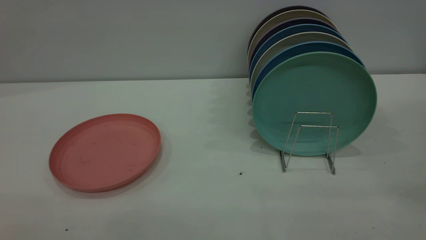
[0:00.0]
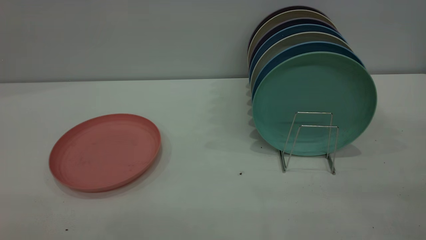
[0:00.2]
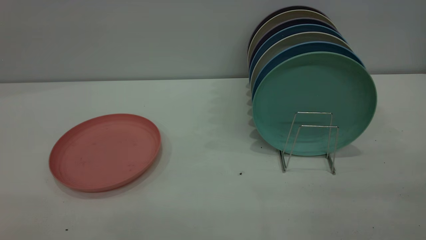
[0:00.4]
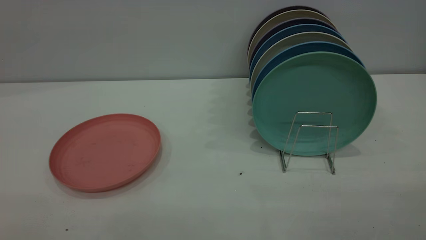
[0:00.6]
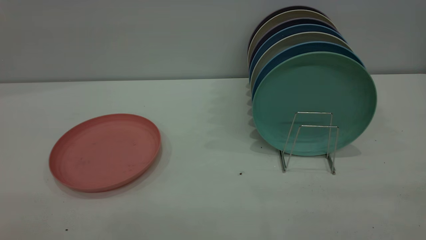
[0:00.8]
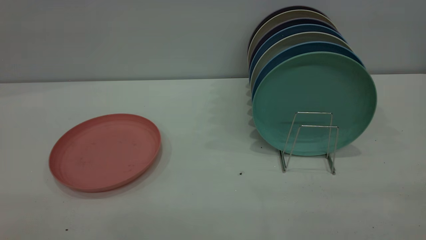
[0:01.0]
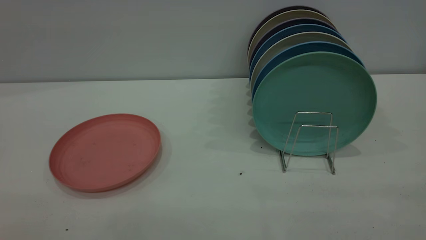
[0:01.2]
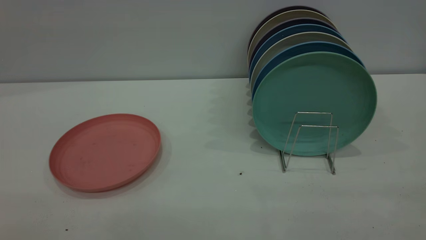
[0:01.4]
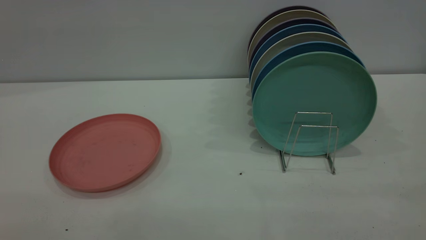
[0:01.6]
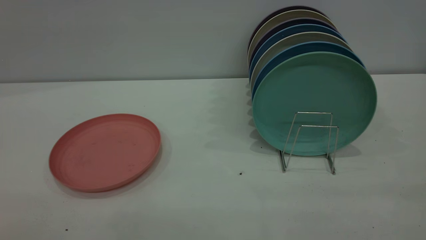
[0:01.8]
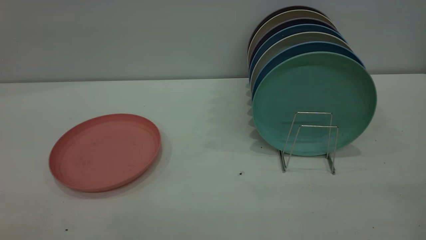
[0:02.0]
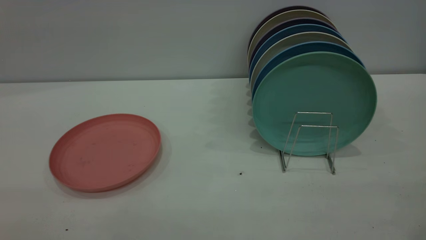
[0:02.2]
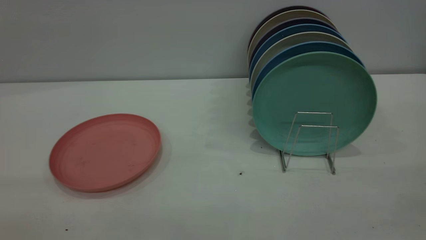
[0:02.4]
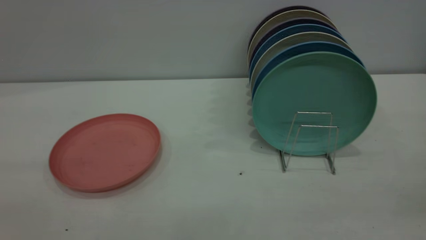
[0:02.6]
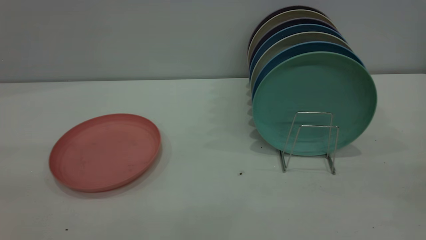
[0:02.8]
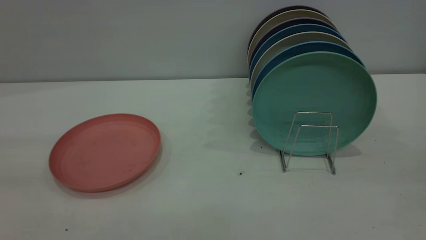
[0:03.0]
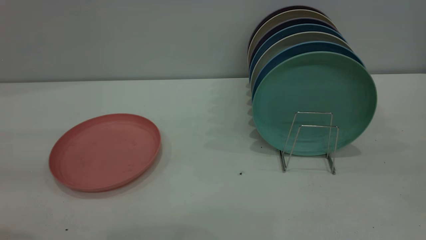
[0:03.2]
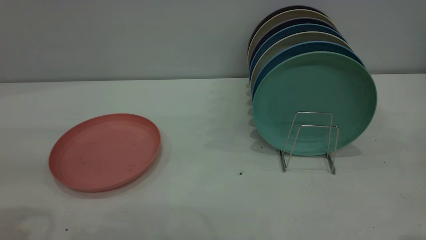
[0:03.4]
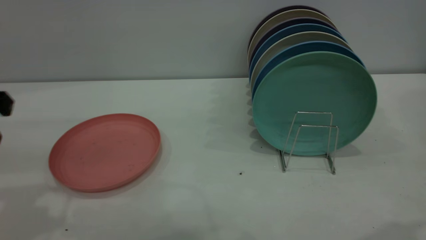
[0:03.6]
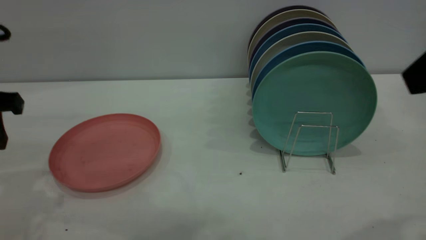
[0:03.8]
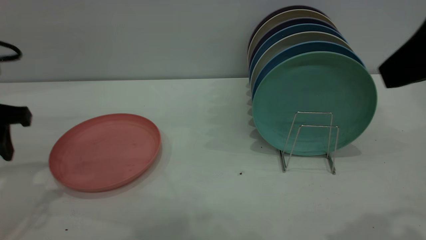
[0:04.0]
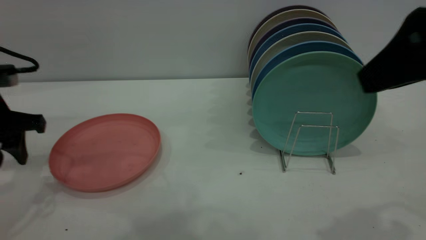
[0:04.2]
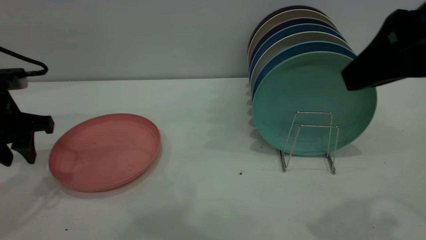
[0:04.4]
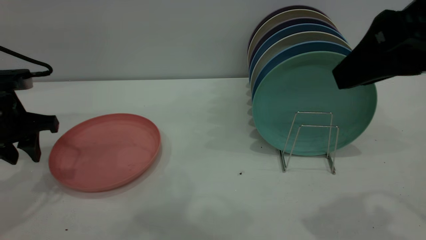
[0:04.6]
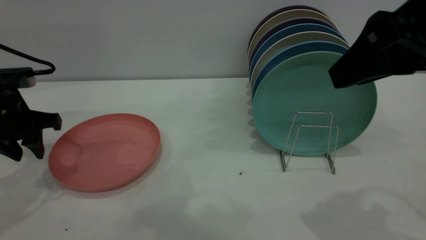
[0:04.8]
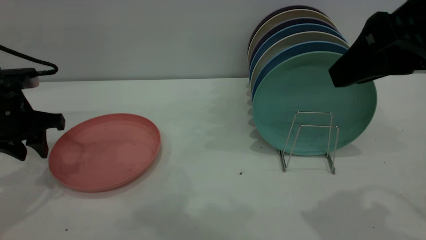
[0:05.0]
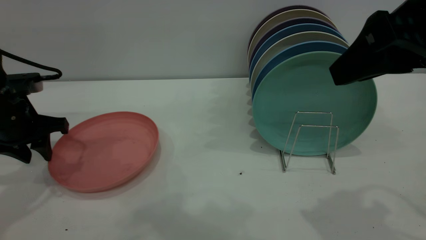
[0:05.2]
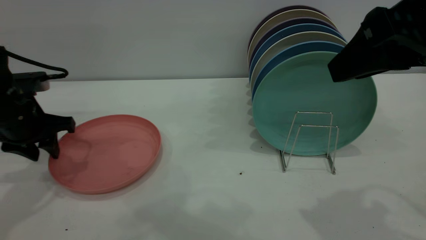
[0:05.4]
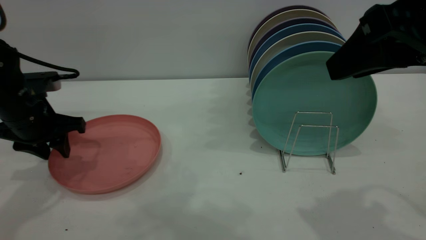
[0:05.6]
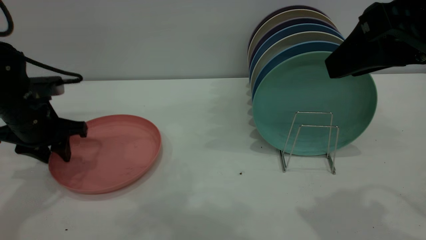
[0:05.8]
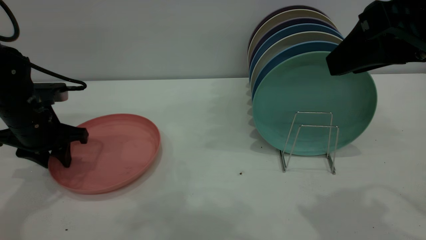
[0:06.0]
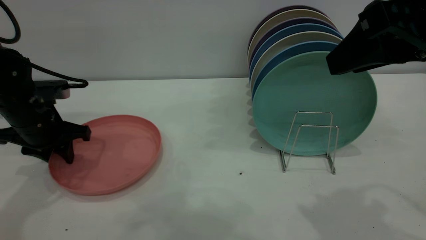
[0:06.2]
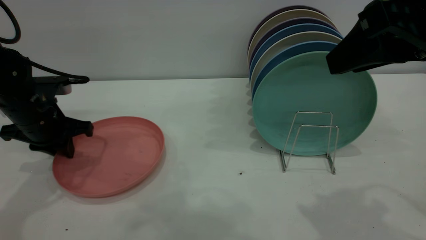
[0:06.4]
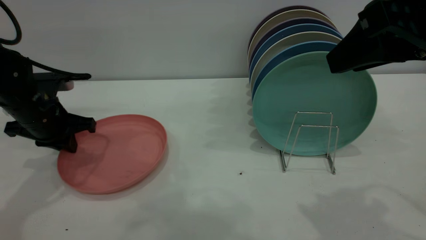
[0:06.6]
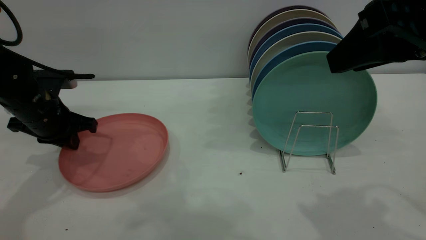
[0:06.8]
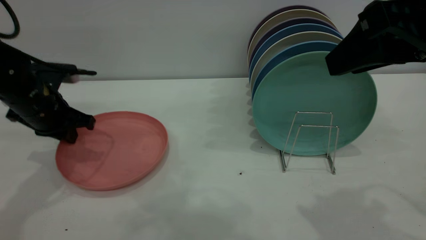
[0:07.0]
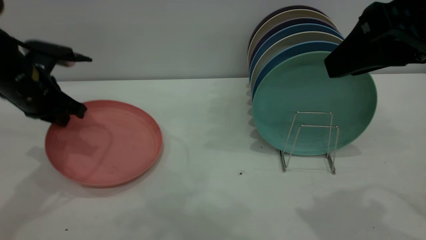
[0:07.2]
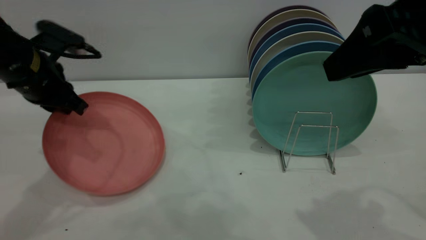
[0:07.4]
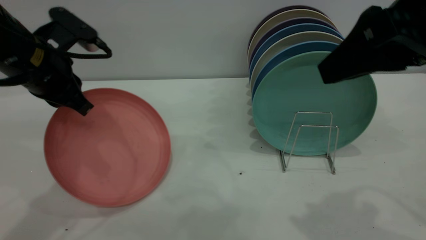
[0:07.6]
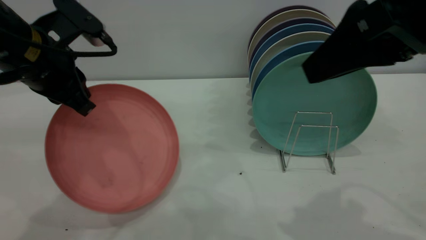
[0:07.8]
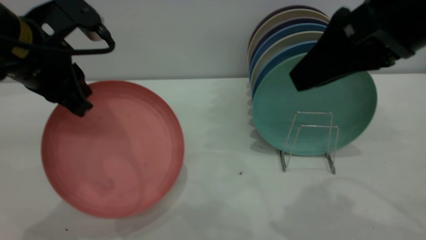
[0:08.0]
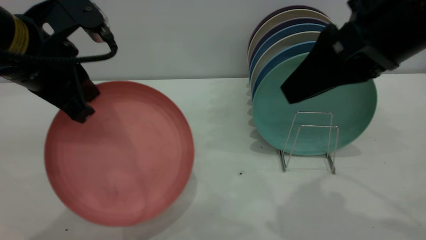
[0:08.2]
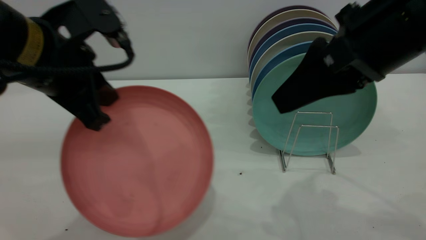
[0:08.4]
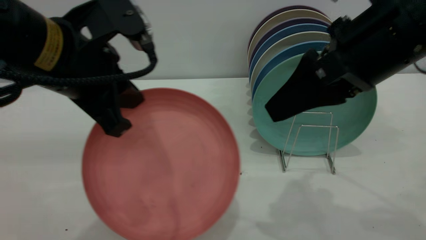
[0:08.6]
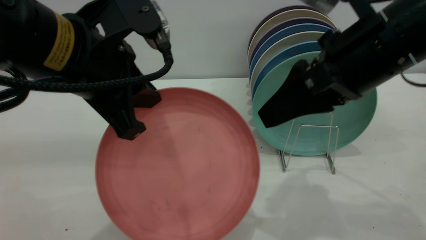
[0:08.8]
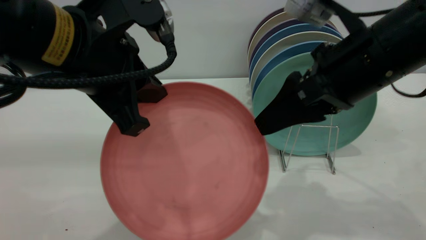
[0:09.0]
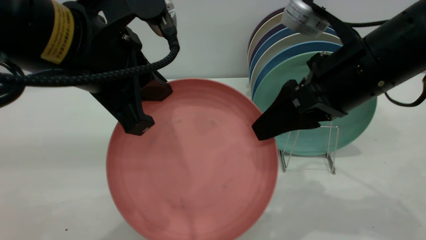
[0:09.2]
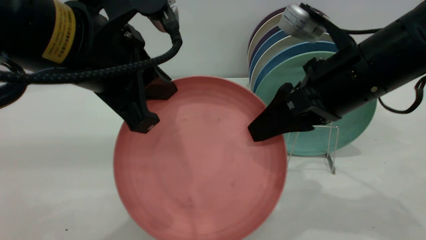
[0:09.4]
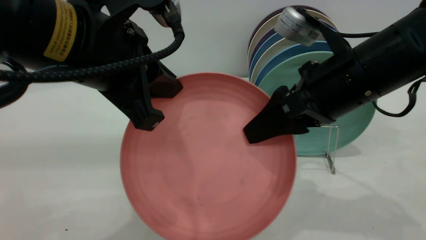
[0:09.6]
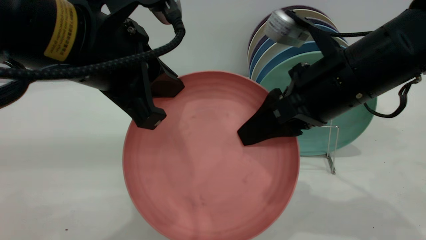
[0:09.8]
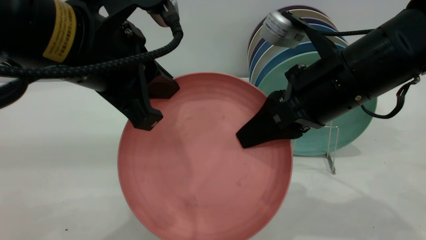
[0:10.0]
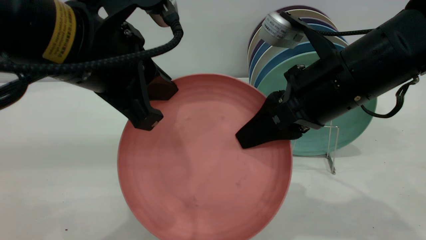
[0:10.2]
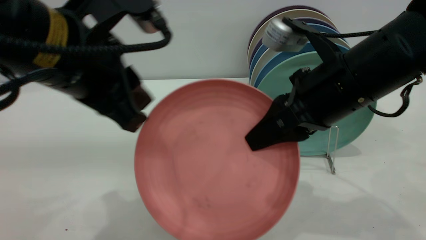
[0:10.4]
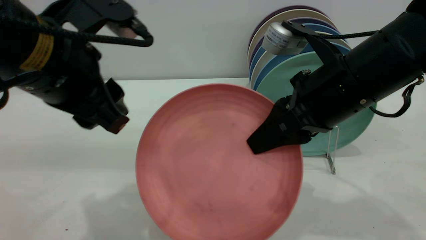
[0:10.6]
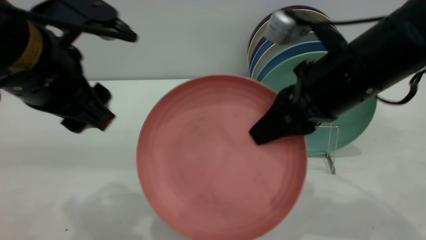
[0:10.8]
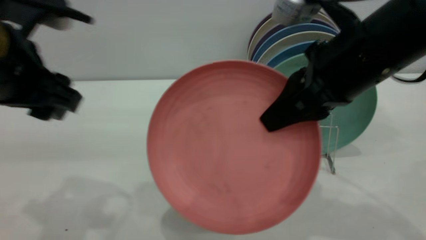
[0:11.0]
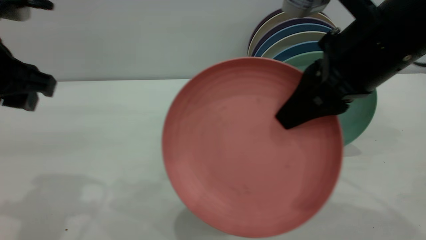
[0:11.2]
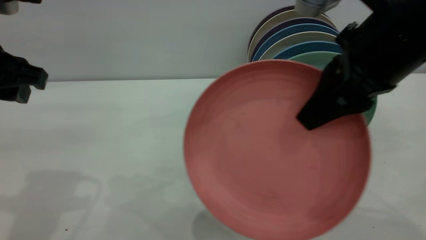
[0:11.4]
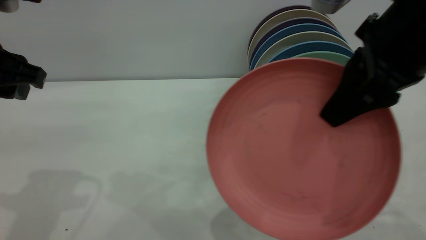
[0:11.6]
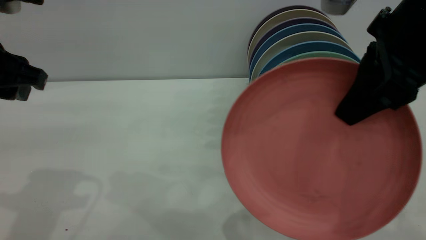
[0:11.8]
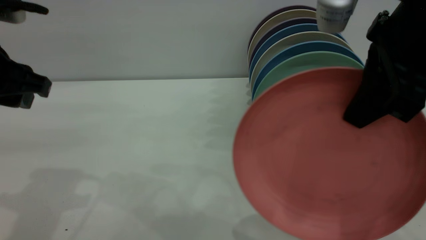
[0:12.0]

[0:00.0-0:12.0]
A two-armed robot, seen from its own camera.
Task of the whole recording: put the plate on the plate rack.
Step, 0:00.0 to 0:07.4: Pick up the plate with the left gripper.
Step, 0:07.6 to 0:10.4: Pass the plate from the left gripper to the right gripper.
0:00.0 to 0:01.6: Neither gripper changes place.
0:03.0 to 0:04.4: The right gripper travels forward, to the left and downward by some 15 cm. The left gripper travels forward and downward by roughly 25 cm.
0:04.4 to 0:06.0: The left gripper changes place by some 5 cm.
0:06.0 to 0:07.6: The left gripper is displaced upward and to the right by some 10 cm, and closes its fingers.
0:07.6 to 0:09.0: The right gripper travels downward and forward by roughly 10 cm. Meanwhile the left gripper goes some 15 cm backward, to the right and upward.
0:09.0 to 0:10.4: The left gripper opens, while the right gripper closes.
0:10.4 to 0:12.0: The left gripper shifts about 10 cm to the left, and opens its fingers. The right gripper travels upward by about 10 cm.

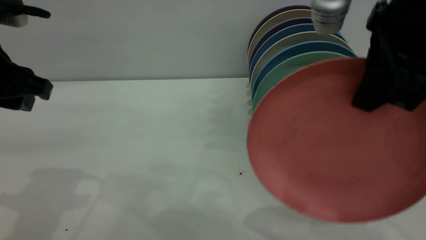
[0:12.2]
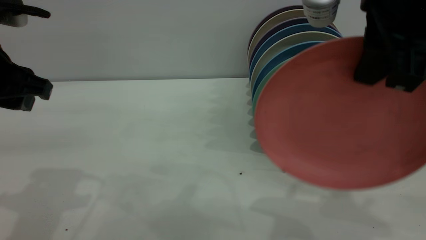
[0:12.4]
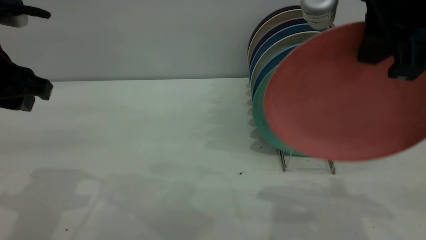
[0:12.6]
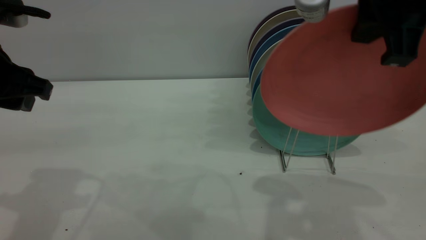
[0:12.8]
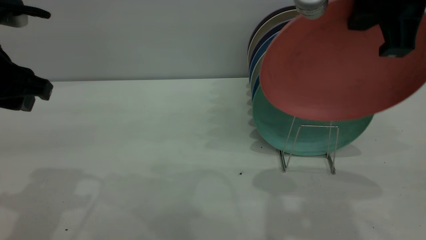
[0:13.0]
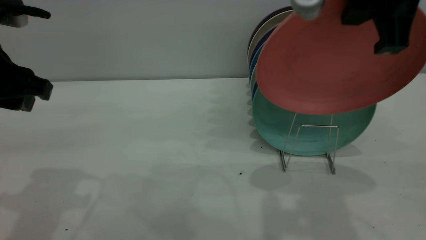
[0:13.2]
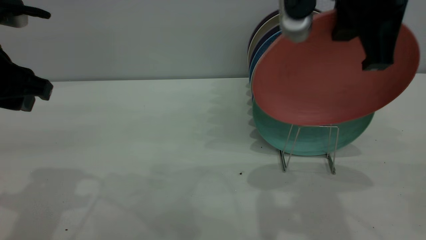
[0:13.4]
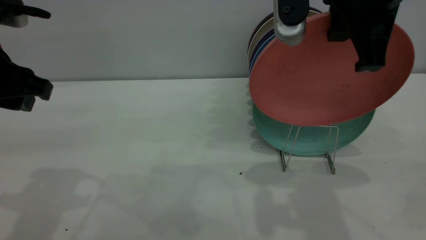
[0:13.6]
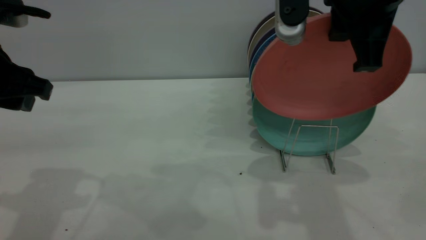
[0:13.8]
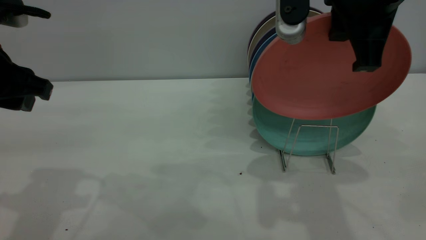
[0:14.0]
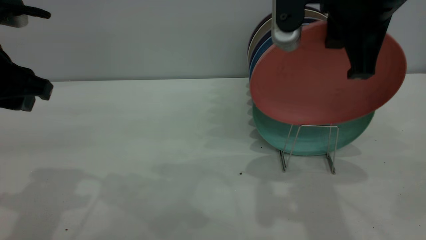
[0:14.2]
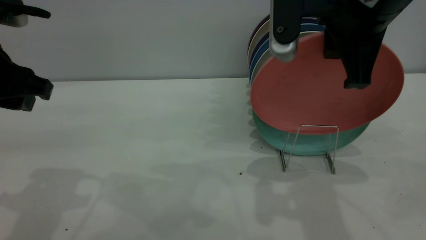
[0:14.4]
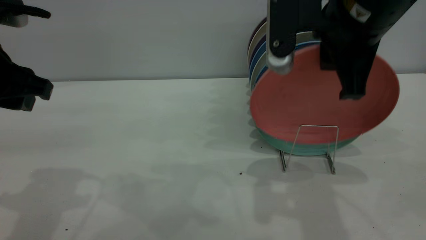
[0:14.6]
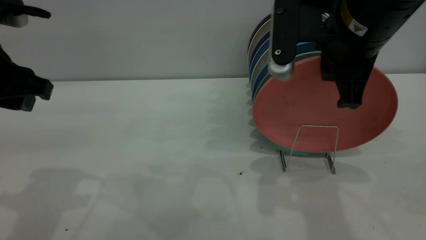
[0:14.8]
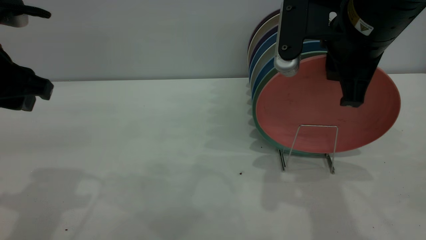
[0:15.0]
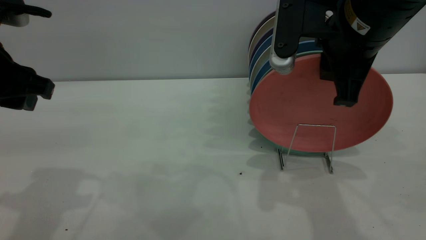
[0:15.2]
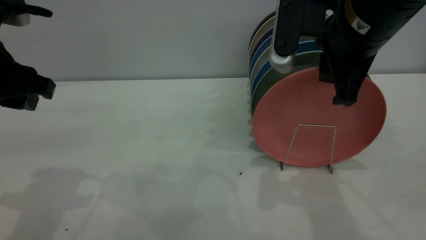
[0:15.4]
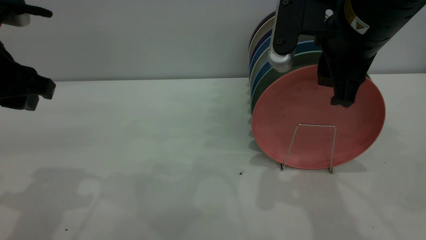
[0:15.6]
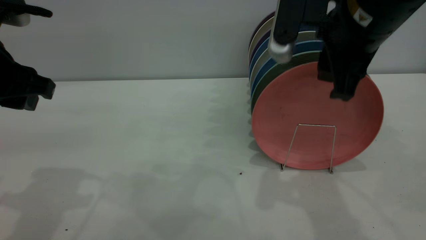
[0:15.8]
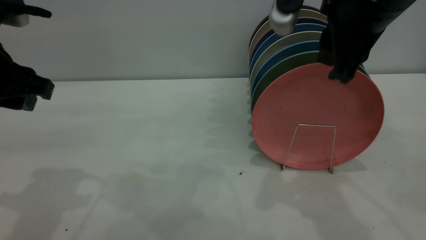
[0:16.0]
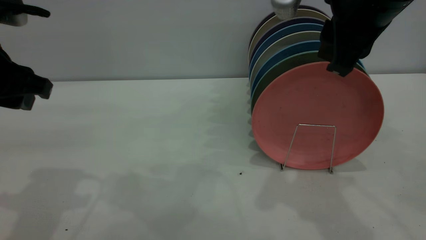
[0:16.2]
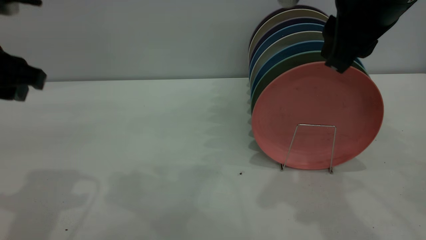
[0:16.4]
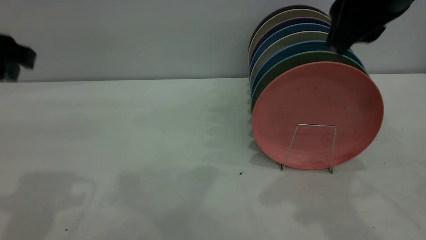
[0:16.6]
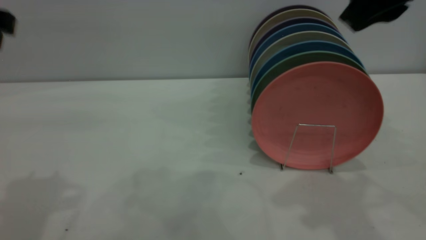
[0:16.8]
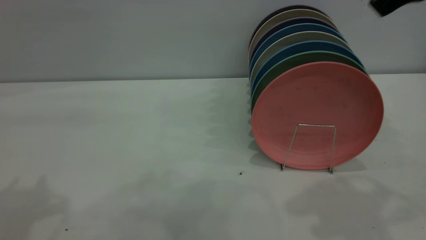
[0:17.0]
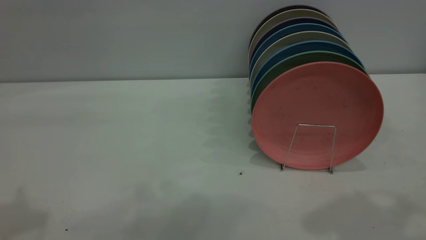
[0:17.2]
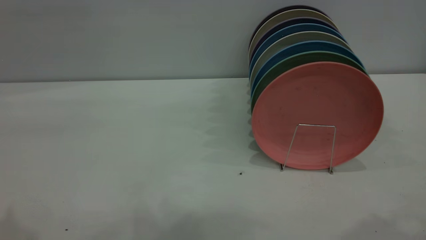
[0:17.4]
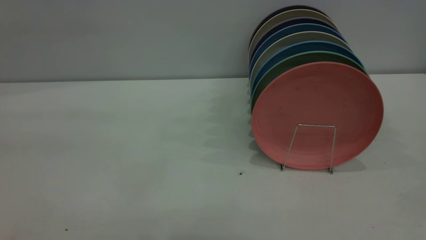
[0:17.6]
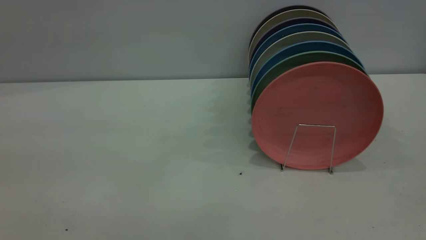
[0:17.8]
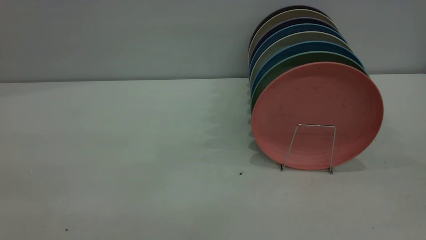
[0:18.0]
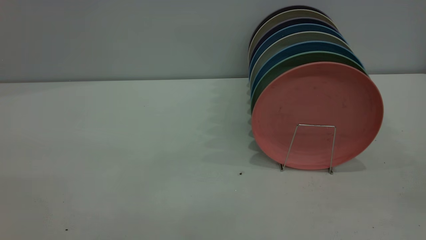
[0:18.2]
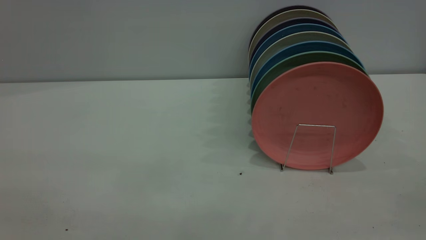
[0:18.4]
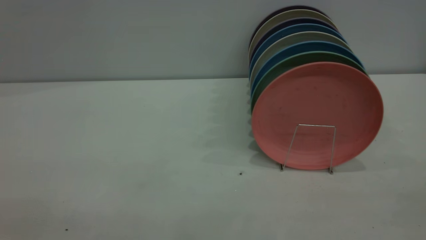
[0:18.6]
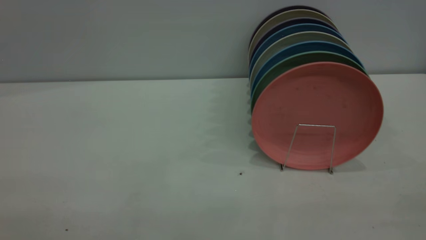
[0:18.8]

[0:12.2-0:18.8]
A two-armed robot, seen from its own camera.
Task of the whole recording: put the plate on the plate rack.
Step, 0:12.2 to 0:16.6: Place the plate on the shelf.
0:13.8 to 0:15.4: The right gripper moves downward, approximately 5 cm, and opens its fingers.
0:15.4 to 0:17.2: The two grippers go roughly 15 cm upward and backward.
